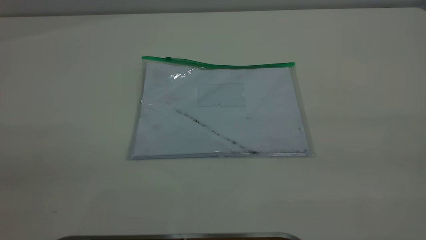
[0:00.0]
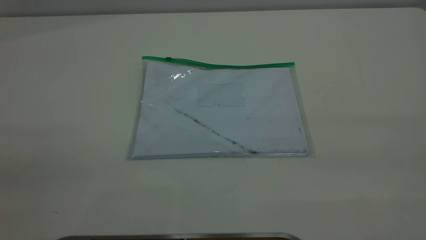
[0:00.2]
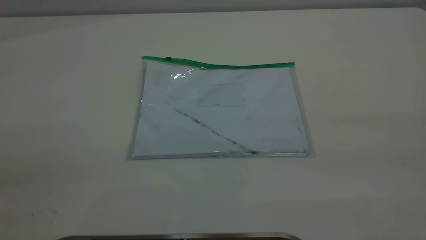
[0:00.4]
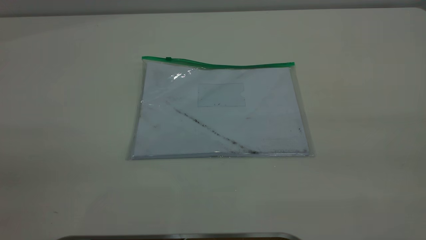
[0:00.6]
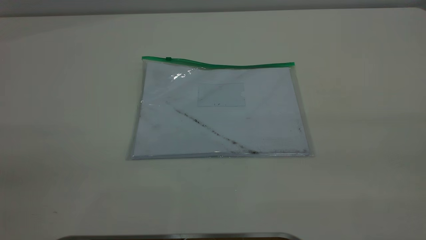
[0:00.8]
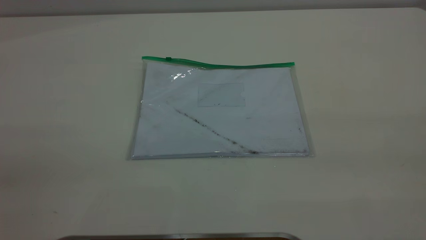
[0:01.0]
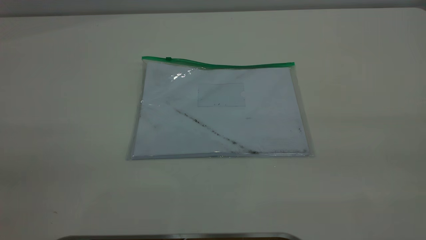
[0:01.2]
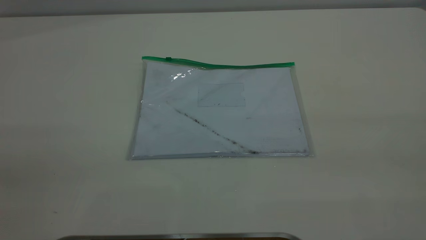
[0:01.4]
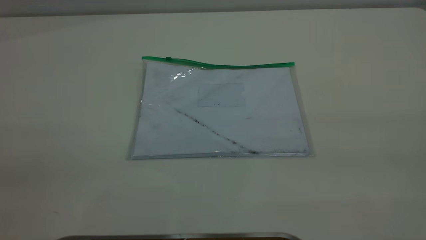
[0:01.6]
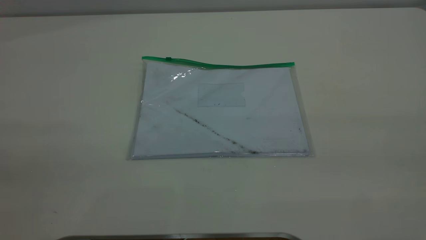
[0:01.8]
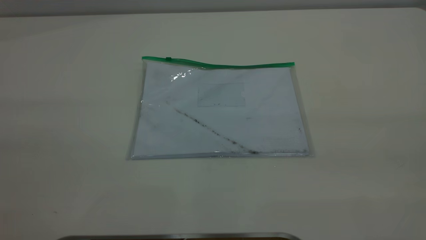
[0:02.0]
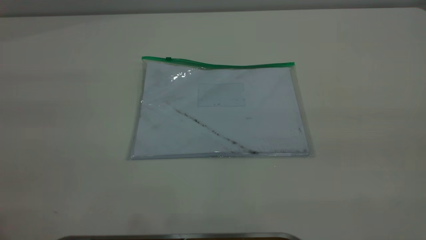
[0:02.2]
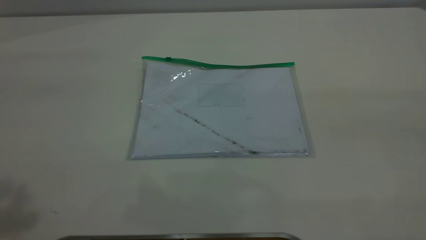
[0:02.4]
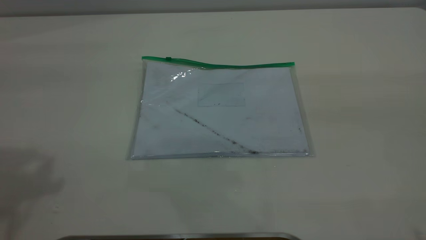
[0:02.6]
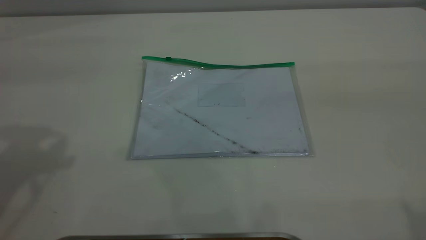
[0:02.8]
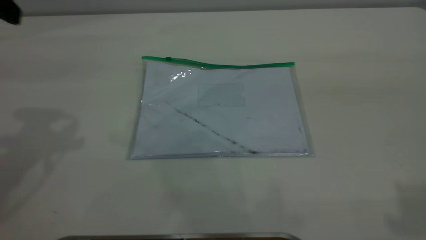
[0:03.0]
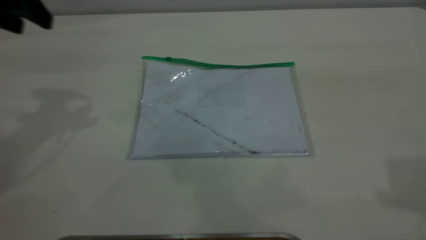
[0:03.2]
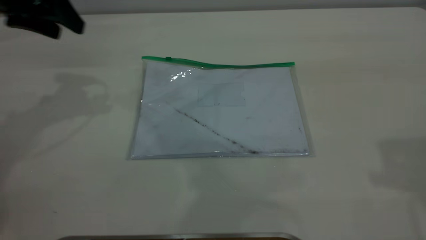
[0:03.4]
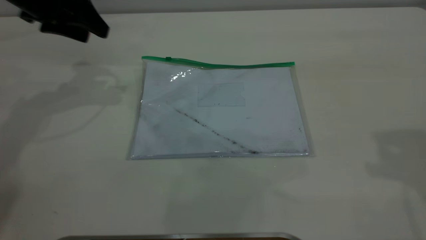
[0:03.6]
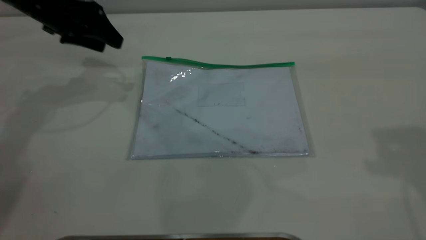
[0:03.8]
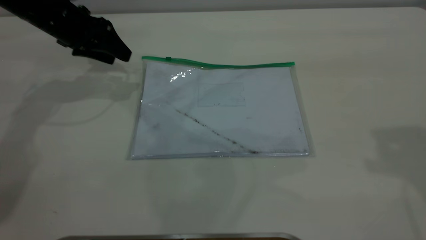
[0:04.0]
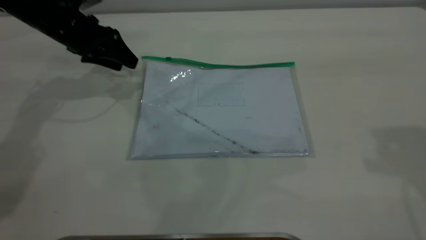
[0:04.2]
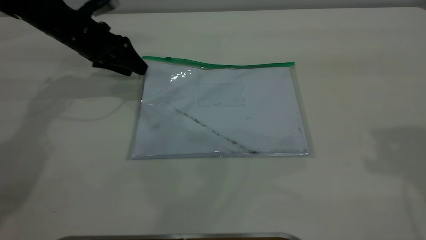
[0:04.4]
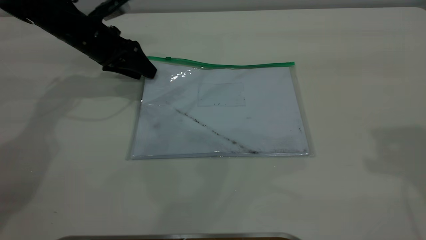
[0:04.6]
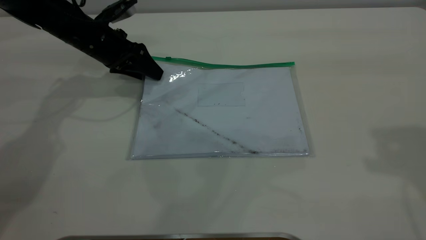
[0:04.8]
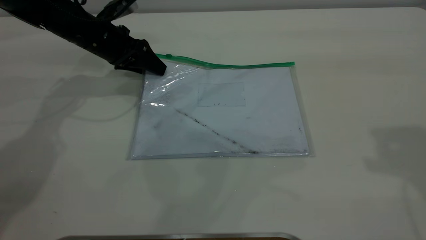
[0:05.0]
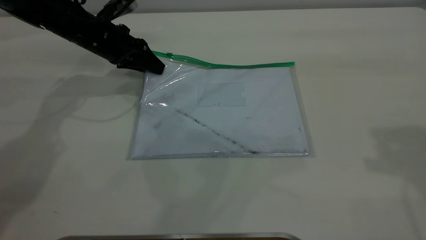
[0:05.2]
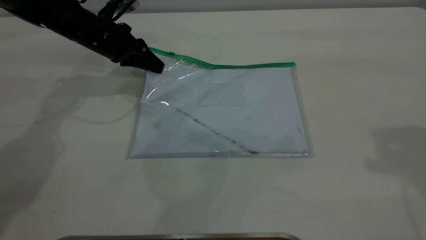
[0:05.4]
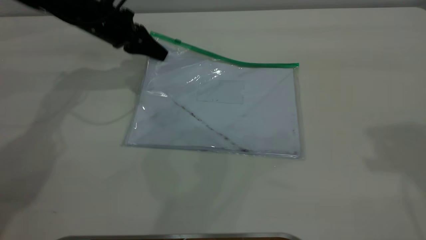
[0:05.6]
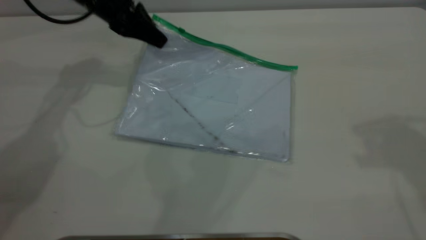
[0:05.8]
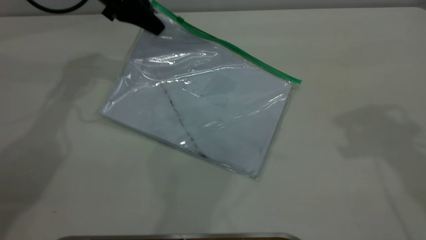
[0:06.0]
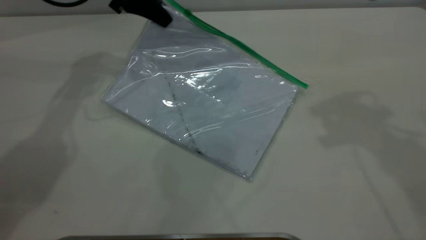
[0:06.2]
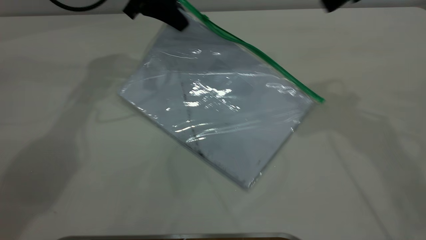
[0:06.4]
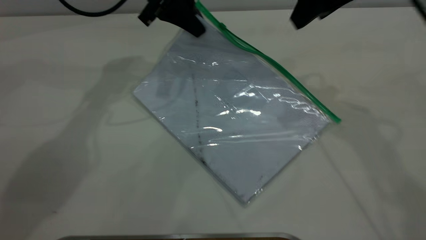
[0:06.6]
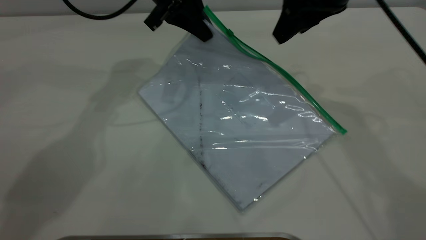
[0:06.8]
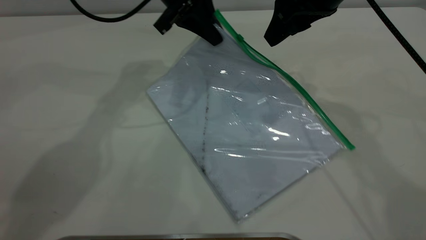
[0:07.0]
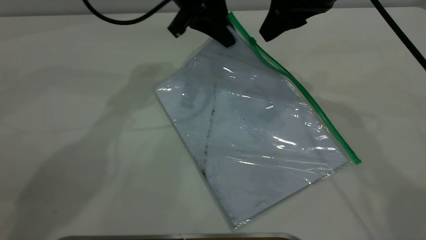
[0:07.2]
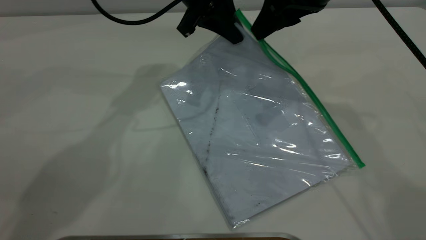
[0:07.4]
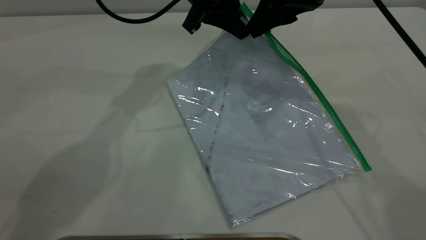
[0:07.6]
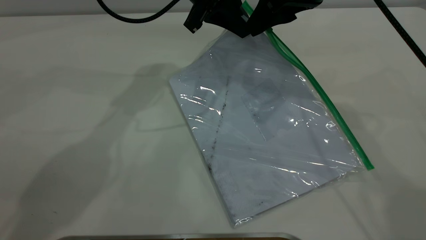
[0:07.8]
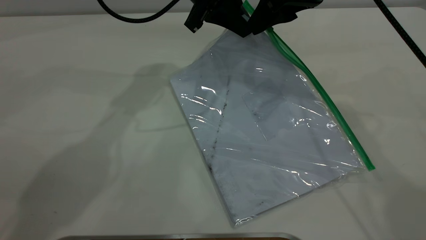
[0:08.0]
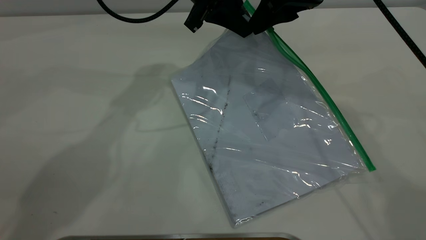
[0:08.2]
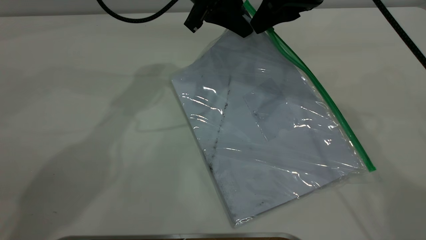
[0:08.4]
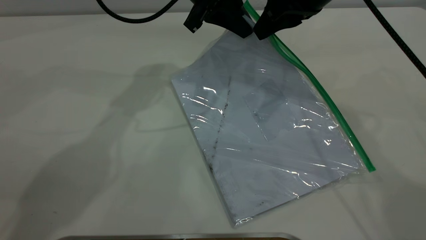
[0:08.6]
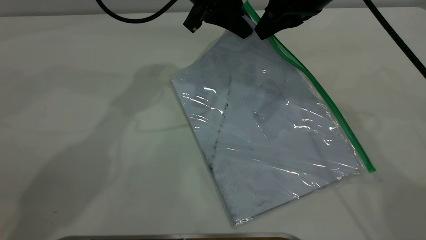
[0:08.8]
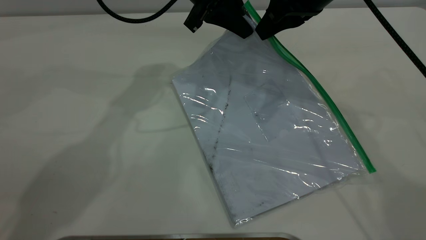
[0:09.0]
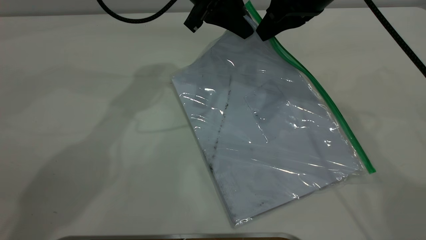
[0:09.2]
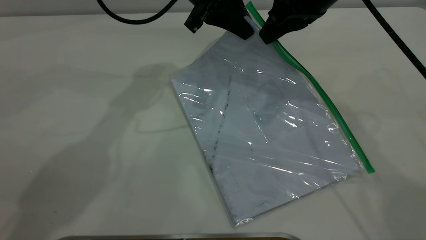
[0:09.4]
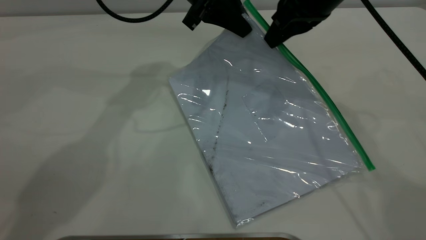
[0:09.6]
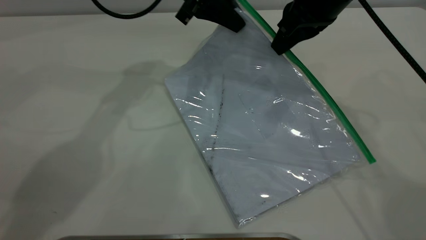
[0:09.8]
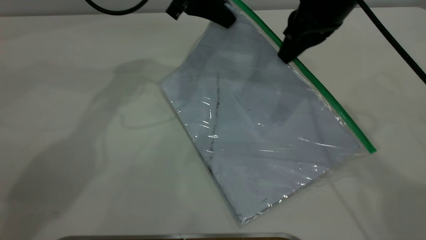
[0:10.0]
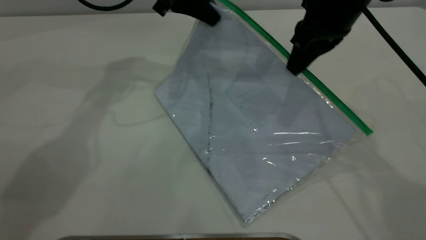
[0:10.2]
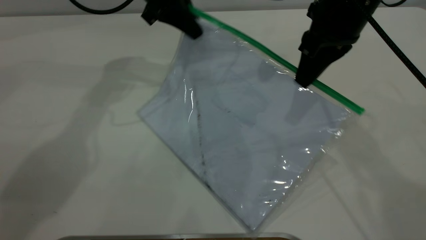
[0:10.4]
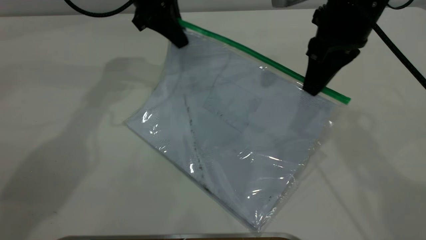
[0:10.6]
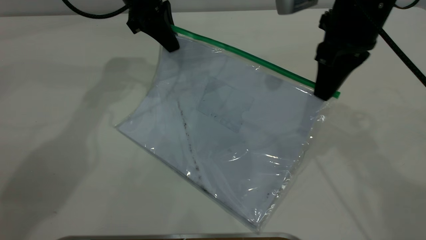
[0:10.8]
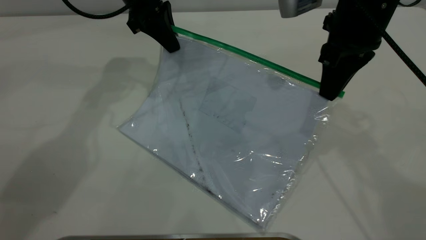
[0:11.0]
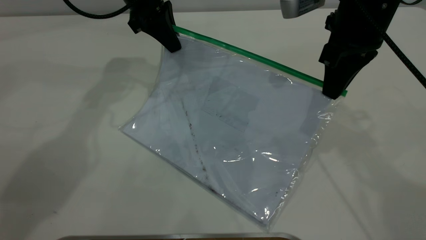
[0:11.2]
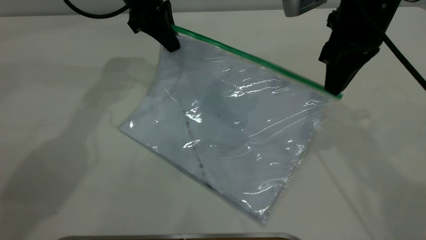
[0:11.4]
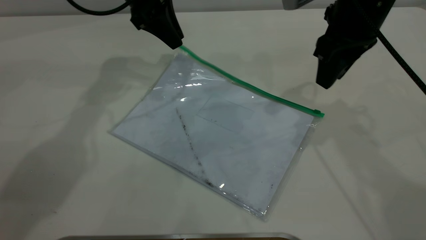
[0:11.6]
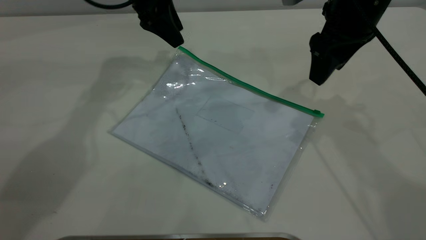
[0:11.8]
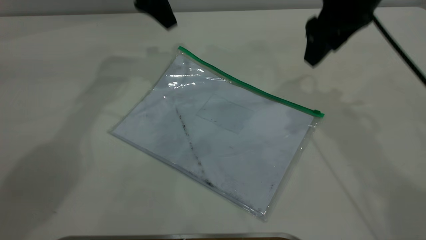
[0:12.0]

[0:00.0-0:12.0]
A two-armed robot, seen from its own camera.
Step, 0:00.0 to 0:05.6: Pick up the transparent plastic bag with the left gripper.
Step, 0:05.8 to 0:11.2: Pulling up the zipper on the transparent plastic bag with the right gripper to close it.
Step, 0:11.6 to 0:11.8: Place the transparent plastic bag.
0:00.0 to 0:01.6: The two grippers keep their place.
0:03.0 to 0:04.4: The left gripper travels downward and forward by roughly 25 cm.
0:04.4 to 0:06.0: The left gripper is displaced upward and to the right by approximately 10 cm, and closes; the right gripper shifts roughly 5 cm forward.
0:06.0 to 0:07.6: The right gripper moves to the left, downward and forward, roughly 15 cm. Meanwhile the left gripper shifts roughly 15 cm to the right.
0:07.6 to 0:09.0: The right gripper closes.
0:09.0 to 0:10.4: The left gripper heads to the left, covering some 10 cm.
0:10.4 to 0:12.0: The right gripper opens. The left gripper moves some 5 cm, and opens.

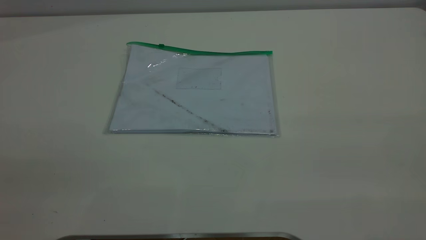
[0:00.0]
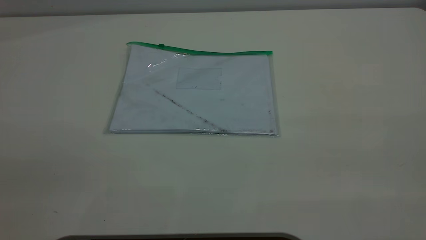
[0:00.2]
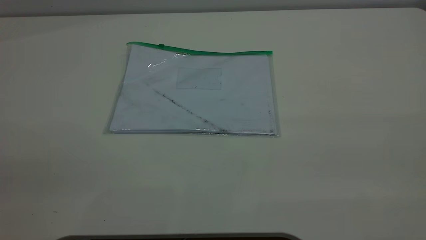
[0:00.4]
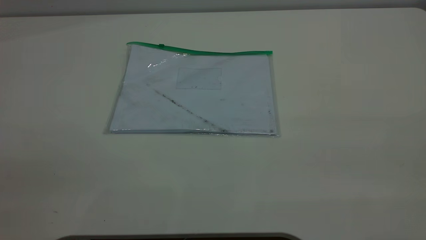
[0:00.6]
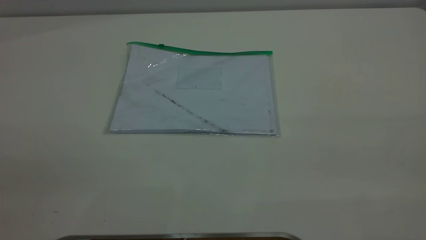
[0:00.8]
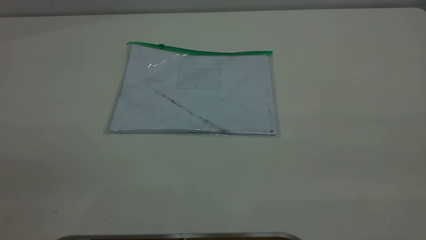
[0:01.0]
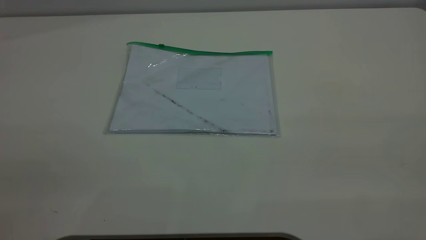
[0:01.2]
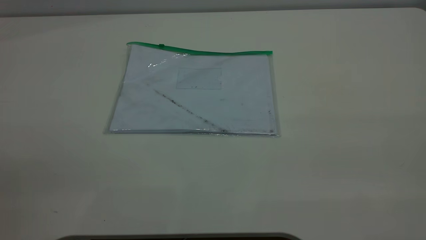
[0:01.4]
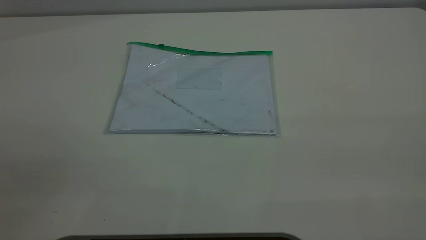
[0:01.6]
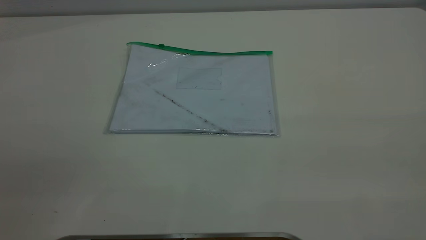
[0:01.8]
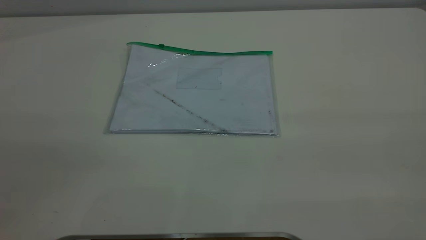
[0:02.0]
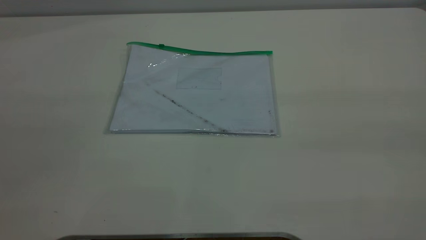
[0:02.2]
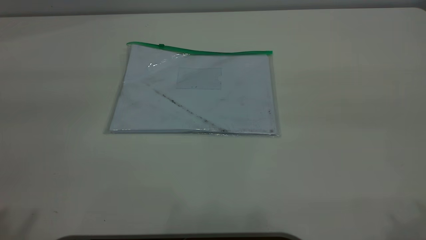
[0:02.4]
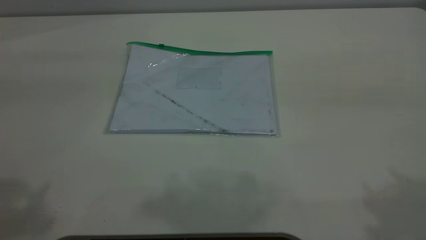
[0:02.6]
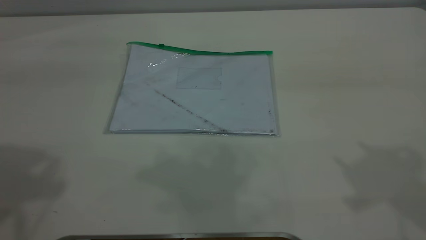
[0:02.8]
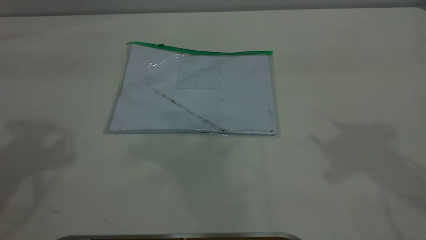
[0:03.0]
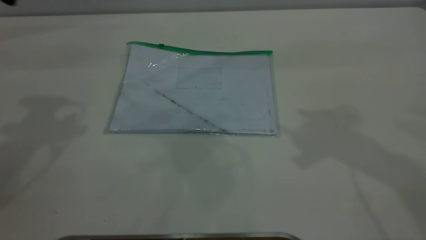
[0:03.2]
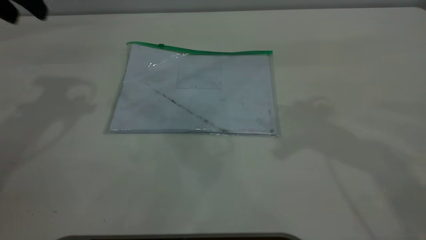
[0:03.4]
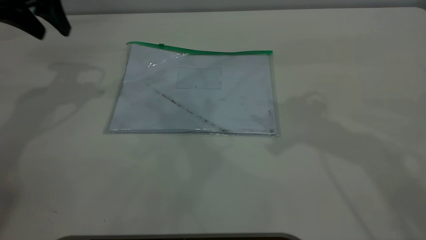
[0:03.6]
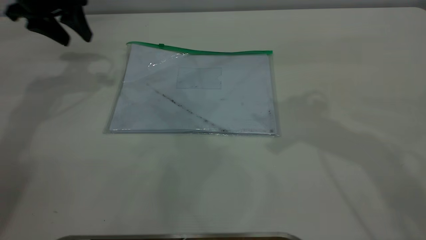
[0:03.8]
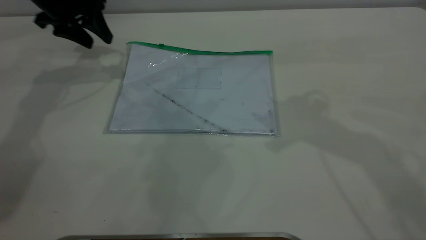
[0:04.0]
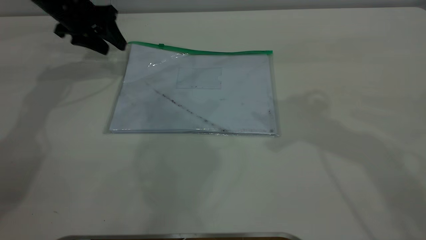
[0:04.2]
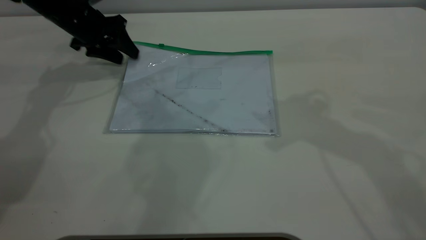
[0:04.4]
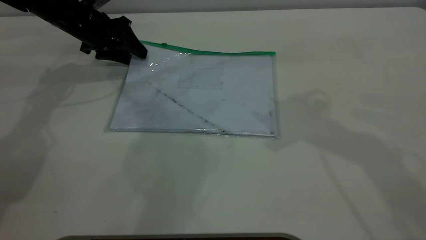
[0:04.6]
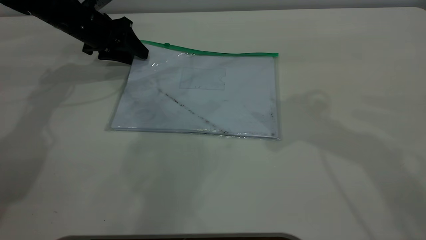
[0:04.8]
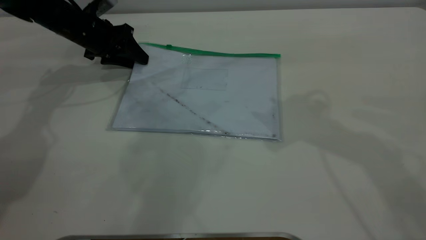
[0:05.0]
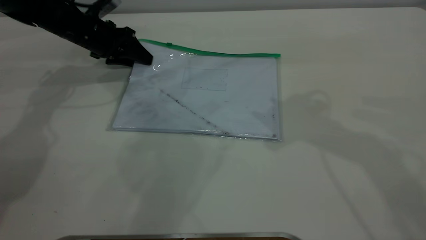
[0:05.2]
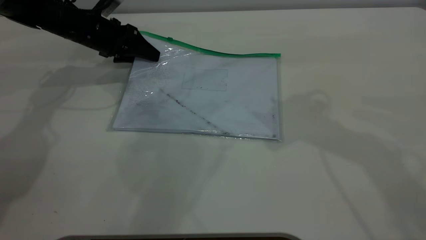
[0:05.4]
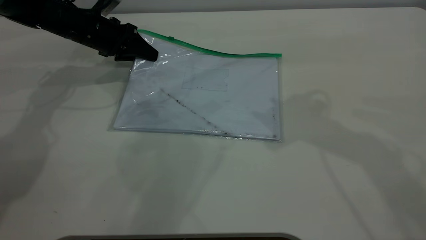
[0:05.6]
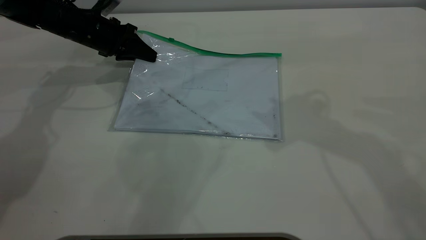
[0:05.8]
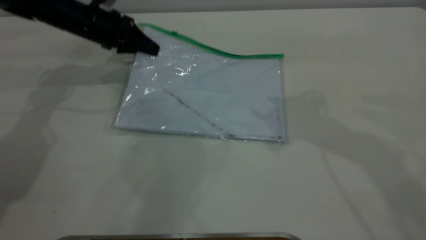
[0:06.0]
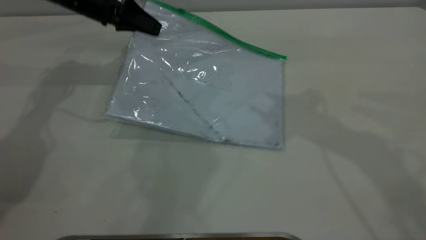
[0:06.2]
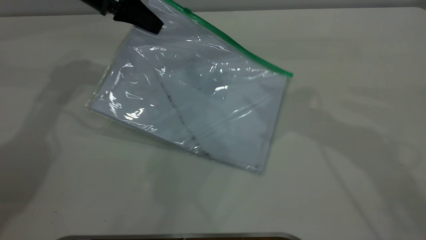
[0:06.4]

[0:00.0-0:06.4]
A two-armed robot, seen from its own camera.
Step, 0:00.0 to 0:06.0: Pick up the transparent plastic bag with the left gripper.
0:01.6 to 0:03.2: Both grippers move forward, some 35 cm.
0:03.2 to 0:04.8: The left gripper moves downward and forward, some 30 cm.
0:04.8 to 0:06.4: The left gripper shifts roughly 10 cm upward and to the right, and closes up.
